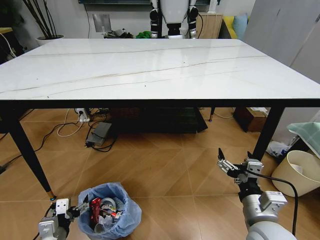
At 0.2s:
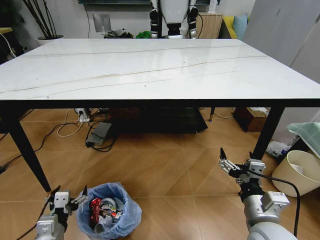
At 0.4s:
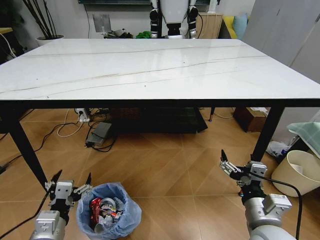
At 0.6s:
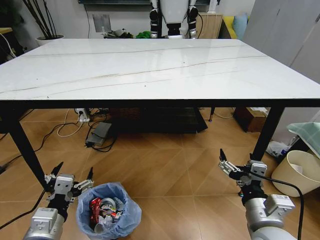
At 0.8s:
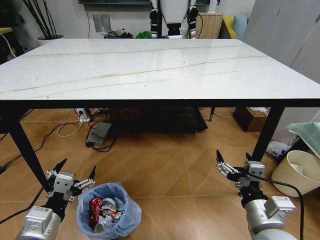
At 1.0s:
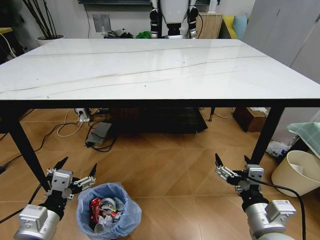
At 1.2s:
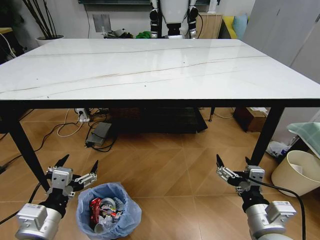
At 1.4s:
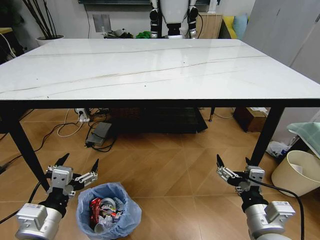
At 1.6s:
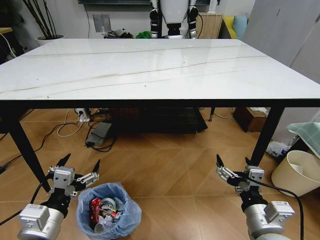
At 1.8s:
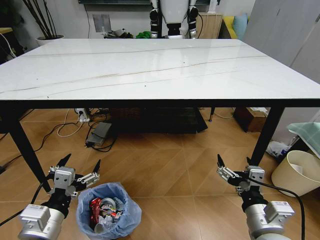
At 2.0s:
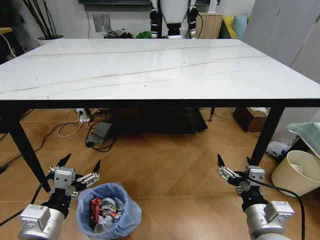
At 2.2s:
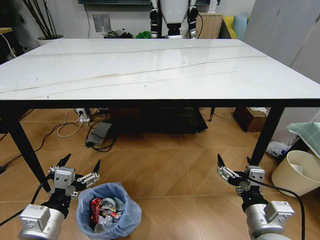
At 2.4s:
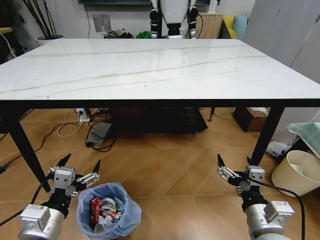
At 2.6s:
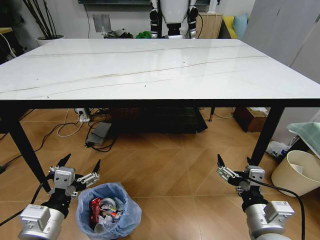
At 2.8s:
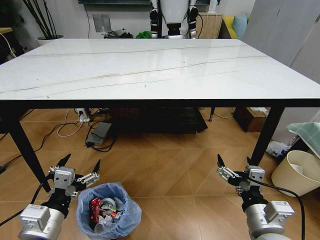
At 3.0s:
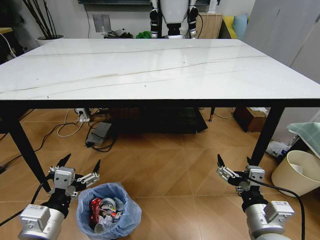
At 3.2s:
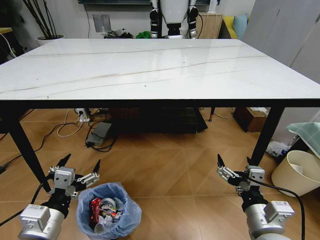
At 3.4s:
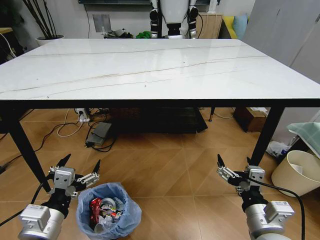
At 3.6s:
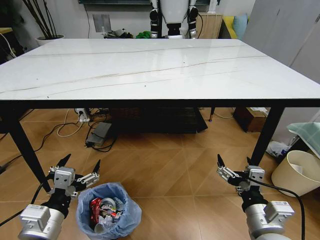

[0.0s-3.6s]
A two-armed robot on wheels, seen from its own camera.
Task of the whole recording: Pick up the trash bin and place the trash from the table into it.
0.0s to 1.8s: The left gripper heads upward, covering about 15 cm.
1.8s to 3.6s: Both grippers stay about where they are.

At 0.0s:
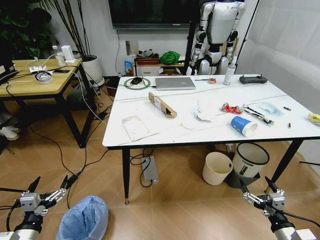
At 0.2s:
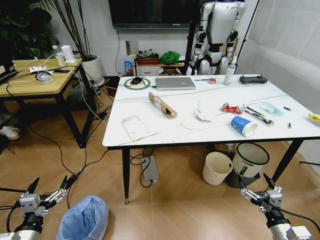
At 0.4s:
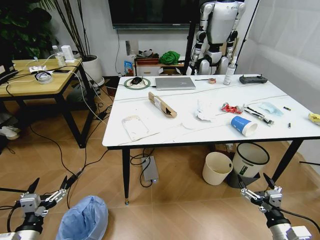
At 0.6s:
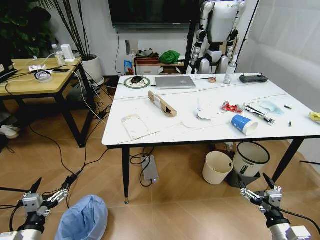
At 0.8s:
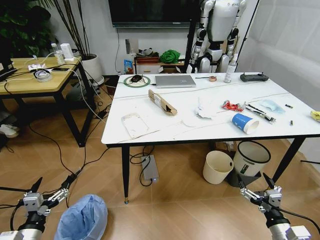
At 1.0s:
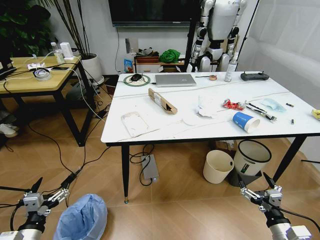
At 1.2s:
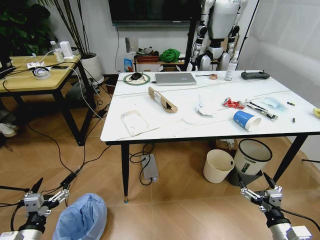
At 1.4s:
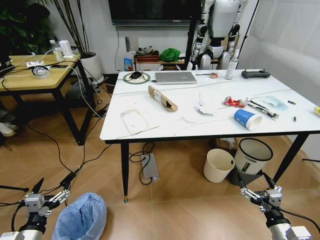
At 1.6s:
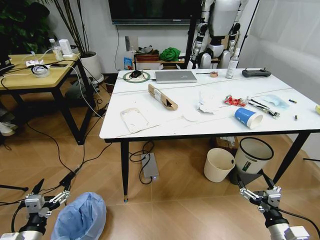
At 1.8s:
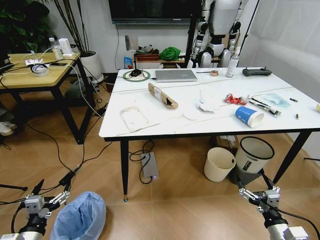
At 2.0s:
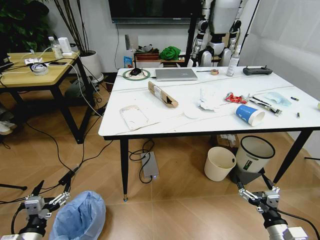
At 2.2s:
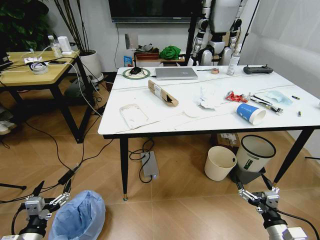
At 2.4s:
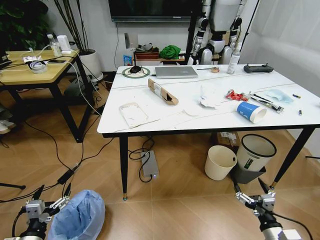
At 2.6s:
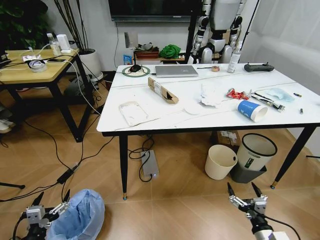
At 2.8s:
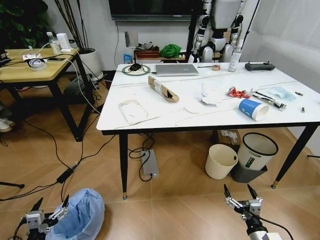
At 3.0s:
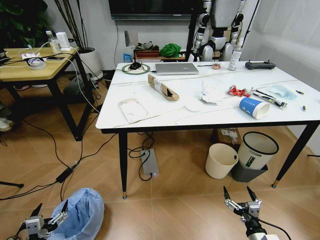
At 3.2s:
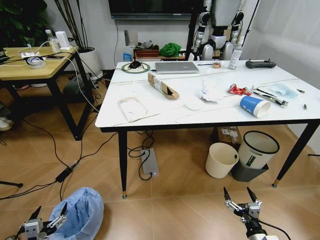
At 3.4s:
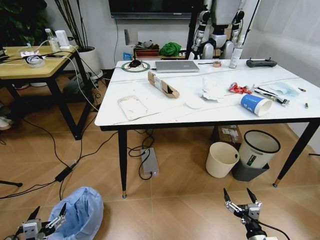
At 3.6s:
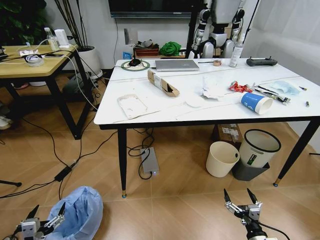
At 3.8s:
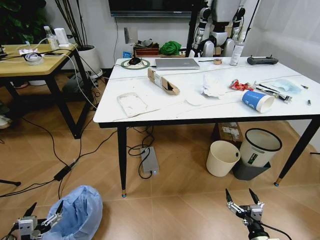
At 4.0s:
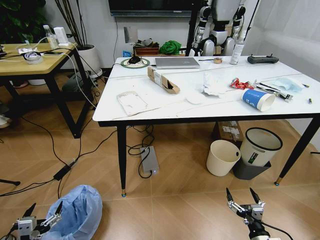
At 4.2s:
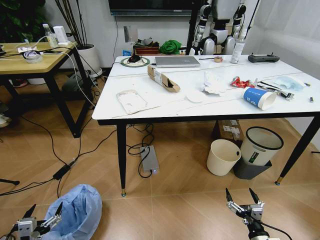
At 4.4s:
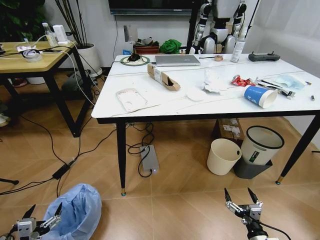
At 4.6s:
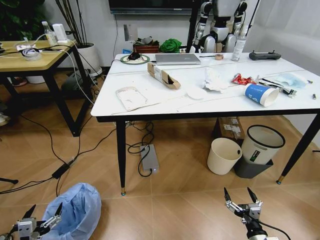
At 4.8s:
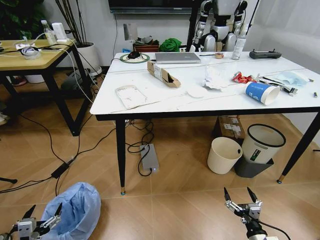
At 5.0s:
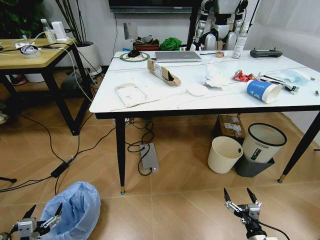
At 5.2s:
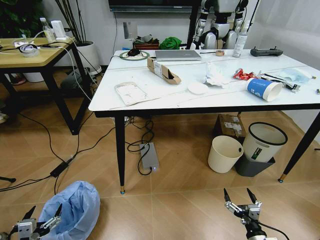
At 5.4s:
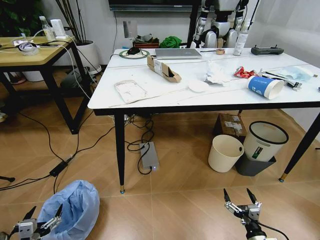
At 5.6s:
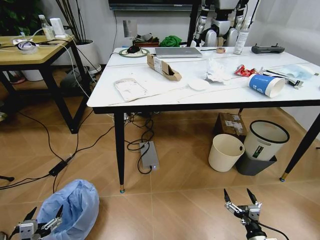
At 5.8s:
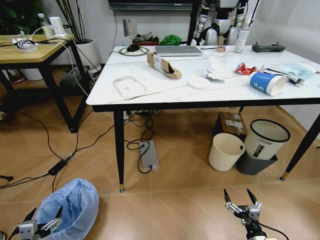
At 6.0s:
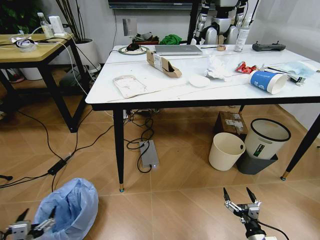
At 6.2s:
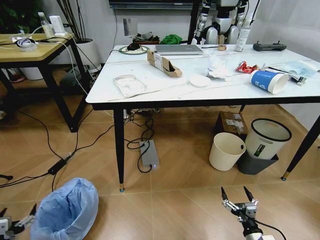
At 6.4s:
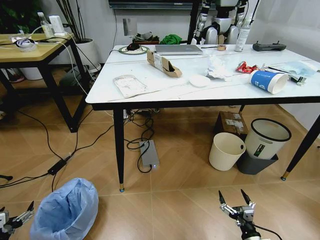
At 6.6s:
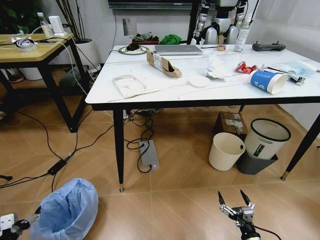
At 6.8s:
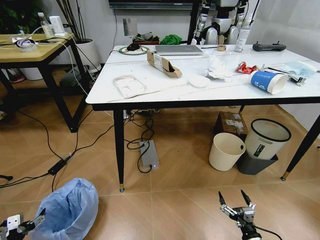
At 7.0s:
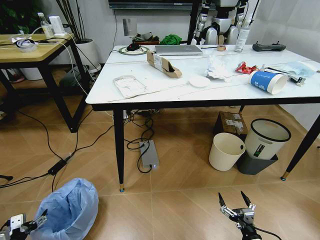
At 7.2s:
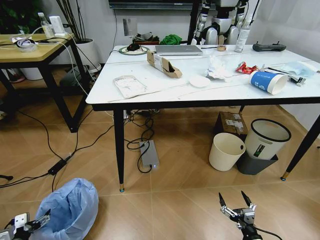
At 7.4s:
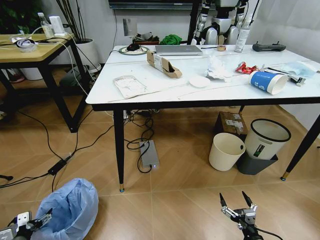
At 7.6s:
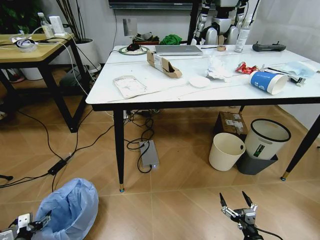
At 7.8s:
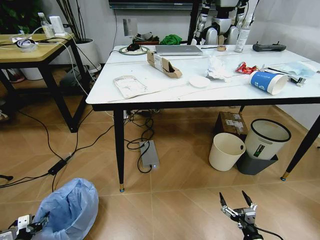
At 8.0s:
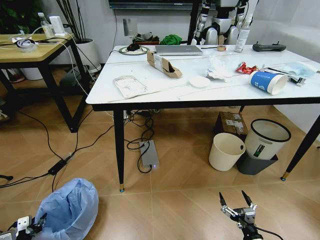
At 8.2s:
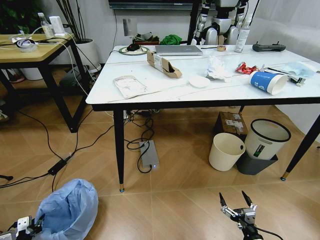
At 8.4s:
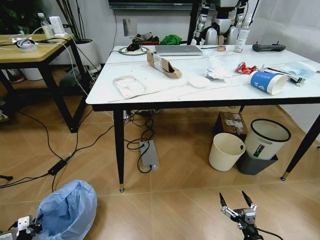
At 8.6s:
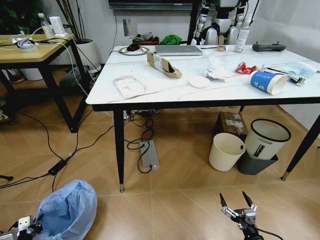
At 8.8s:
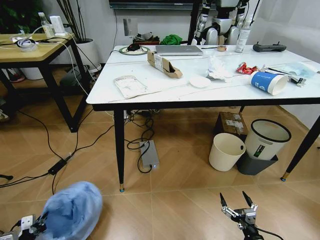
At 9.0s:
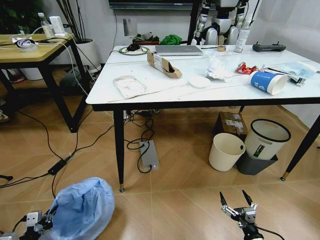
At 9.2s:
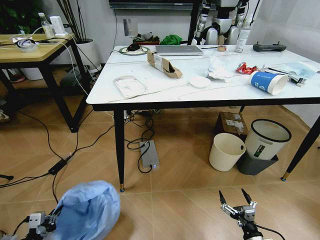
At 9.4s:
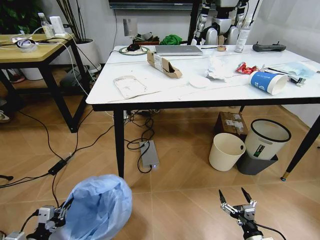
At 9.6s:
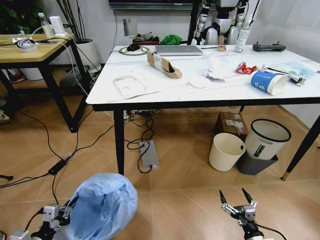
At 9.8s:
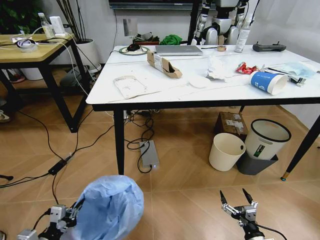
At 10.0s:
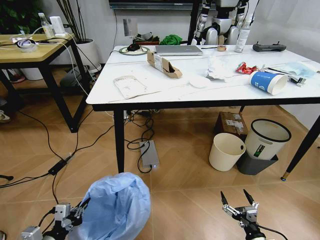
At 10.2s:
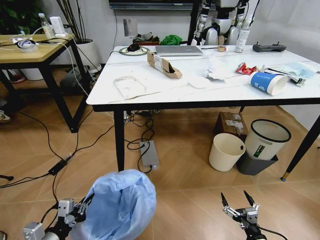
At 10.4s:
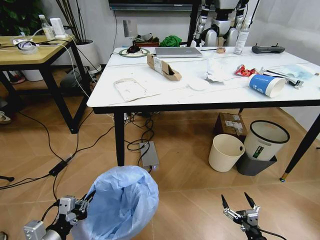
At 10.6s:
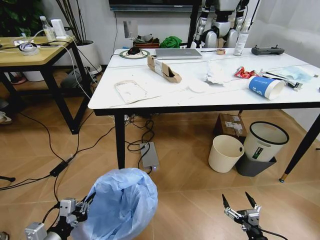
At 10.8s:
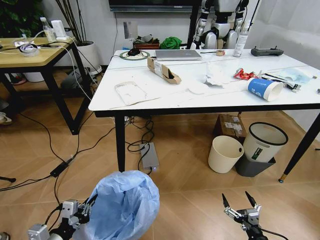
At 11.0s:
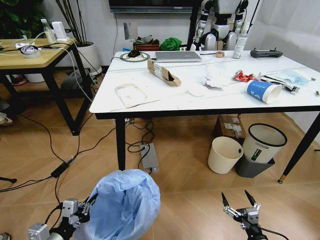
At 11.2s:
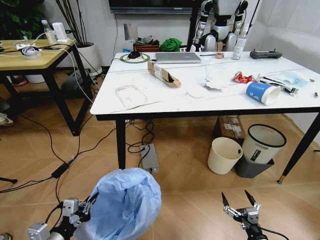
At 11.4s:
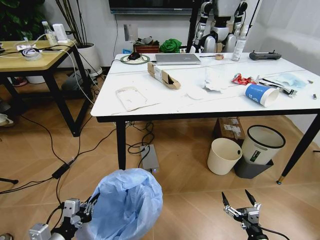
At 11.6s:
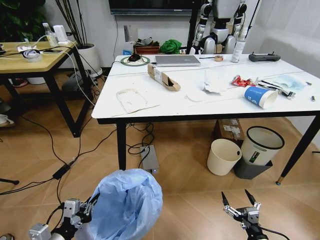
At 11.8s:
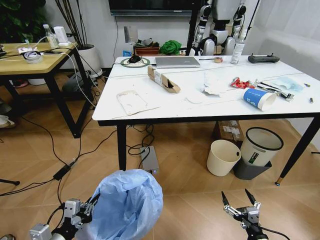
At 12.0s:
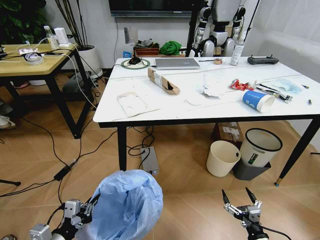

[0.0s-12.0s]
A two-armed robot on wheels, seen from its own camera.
Task of the whole recording: Pick up the trash bin and place the trash from the table into it.
1.6s to 3.0s: Both grippers move downward, some 5 cm.
6.0s to 7.6s: The left gripper travels forward, to the left and downward by some 15 cm.
7.6s to 9.0s: The left gripper heads upward, covering approximately 5 cm, and closes its fingers.
9.0s to 10.4s: The left gripper heads to the right and upward, covering approximately 20 cm.

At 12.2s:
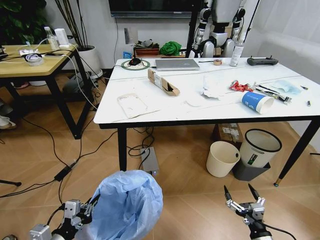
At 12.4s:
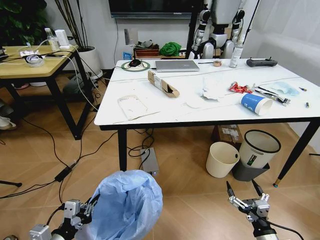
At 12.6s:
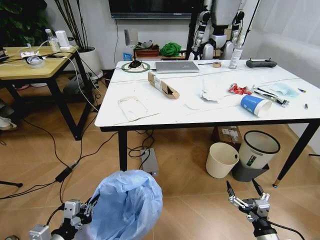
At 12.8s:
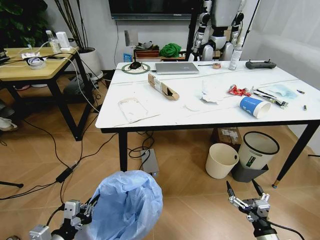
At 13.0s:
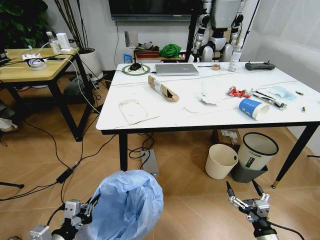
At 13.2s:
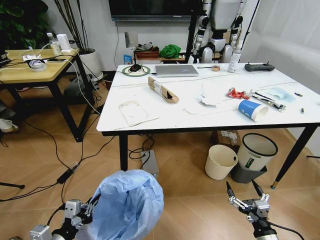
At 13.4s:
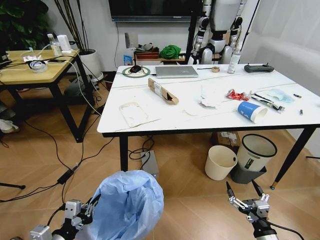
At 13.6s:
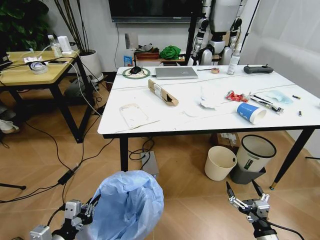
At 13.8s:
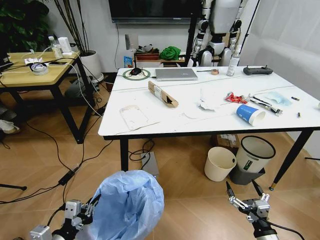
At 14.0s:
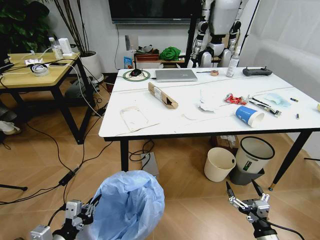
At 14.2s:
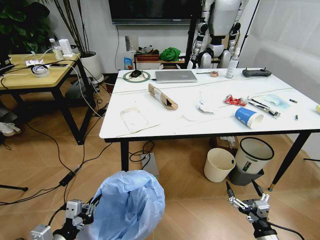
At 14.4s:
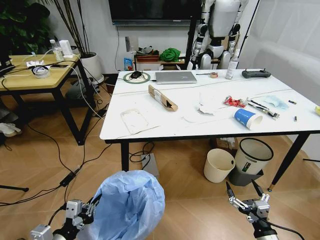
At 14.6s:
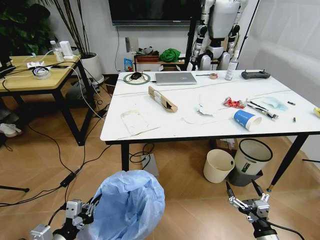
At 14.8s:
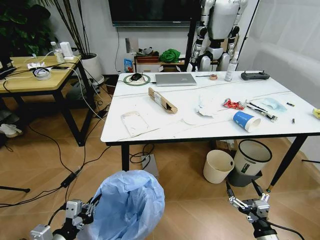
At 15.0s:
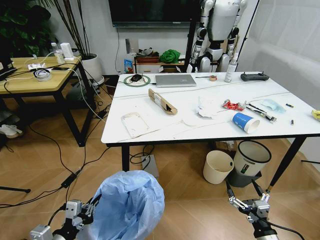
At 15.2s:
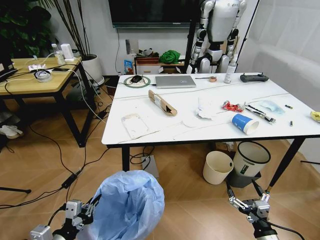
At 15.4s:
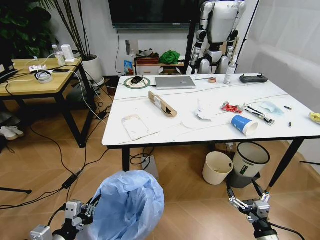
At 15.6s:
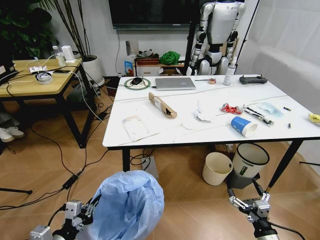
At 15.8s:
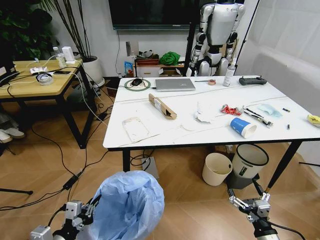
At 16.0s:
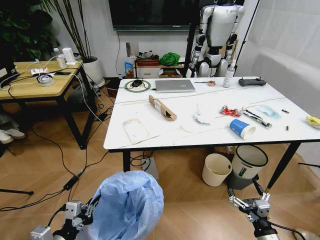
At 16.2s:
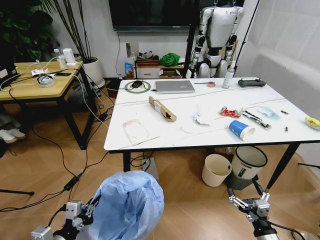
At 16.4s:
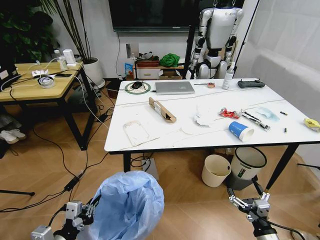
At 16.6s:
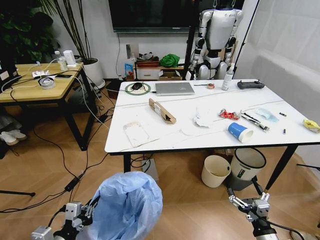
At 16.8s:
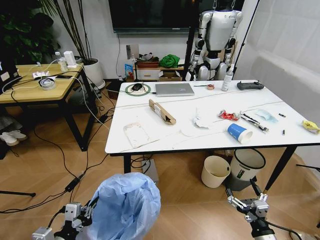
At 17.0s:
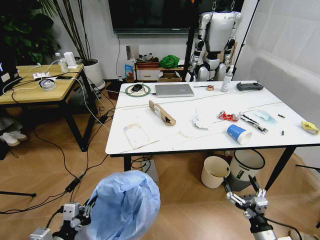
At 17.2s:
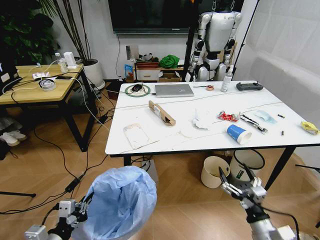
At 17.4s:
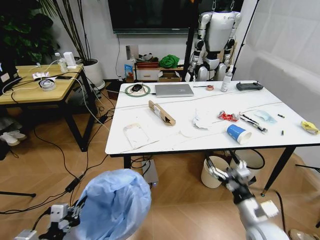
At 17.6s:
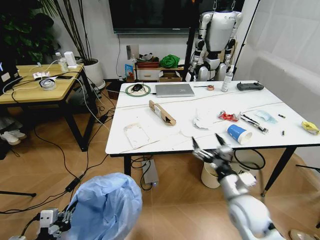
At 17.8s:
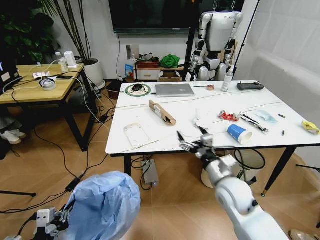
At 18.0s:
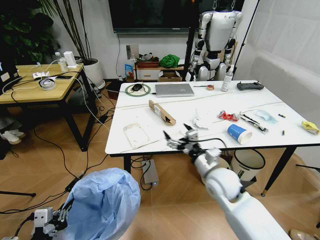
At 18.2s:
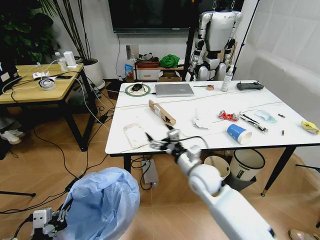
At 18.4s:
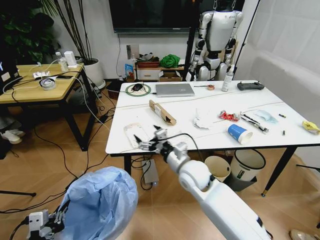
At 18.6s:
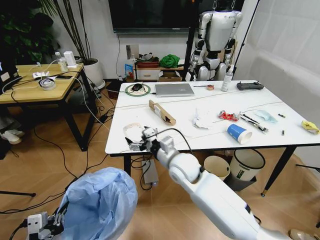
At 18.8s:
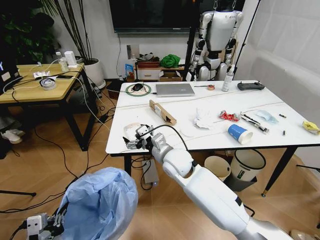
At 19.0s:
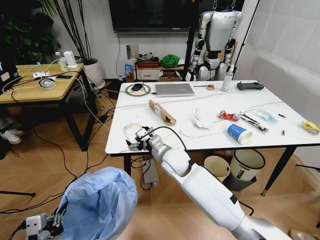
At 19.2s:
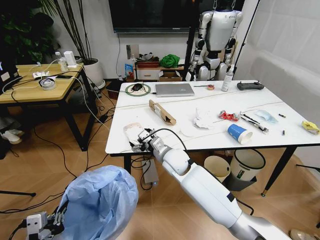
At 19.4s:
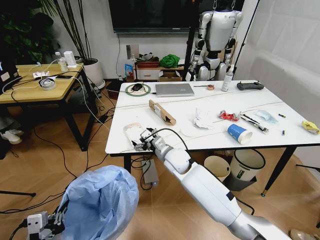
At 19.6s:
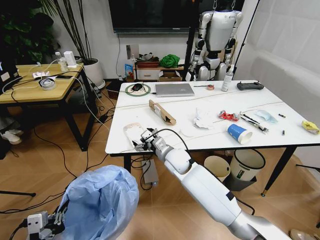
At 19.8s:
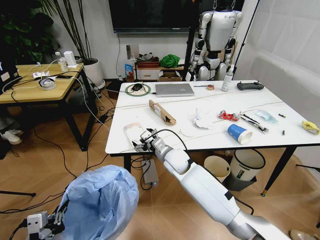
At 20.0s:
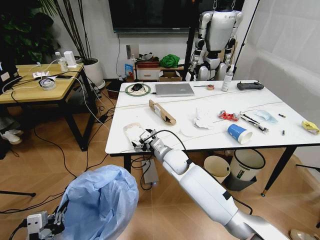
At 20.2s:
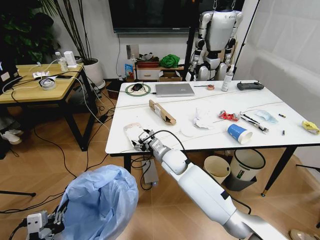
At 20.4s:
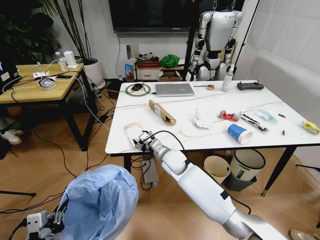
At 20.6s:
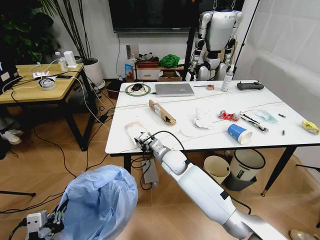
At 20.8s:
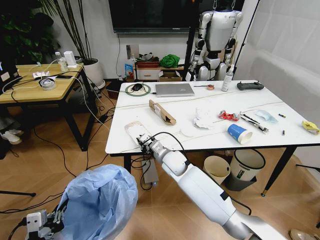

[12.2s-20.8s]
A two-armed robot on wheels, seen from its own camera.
Task of the whole recording: Pick up the trash bin and place the trash from the table into it.
16.6s to 18.0s: The left gripper ends up some 5 cm from where it was. Meanwhile the right gripper heads forward, to the left and upward, covering some 30 cm.
18.0s to 19.4s: The right gripper heads to the left and forward, covering roughly 20 cm.
19.4s to 20.8s: The right gripper closes its fingers.
